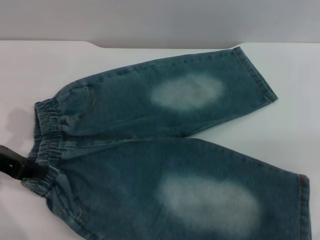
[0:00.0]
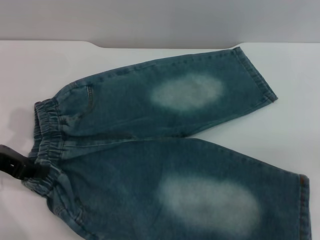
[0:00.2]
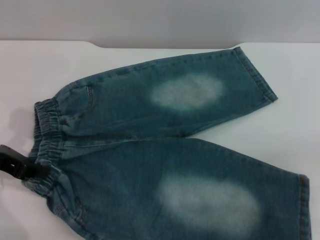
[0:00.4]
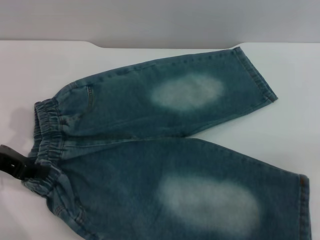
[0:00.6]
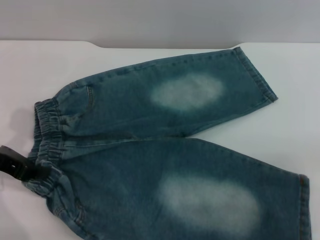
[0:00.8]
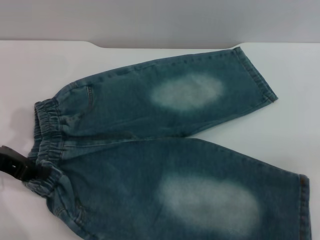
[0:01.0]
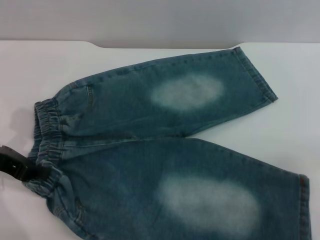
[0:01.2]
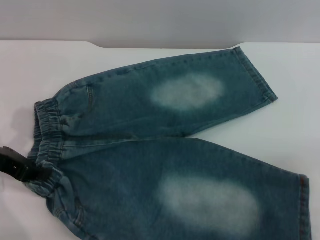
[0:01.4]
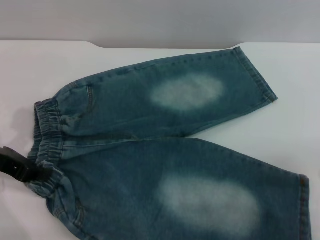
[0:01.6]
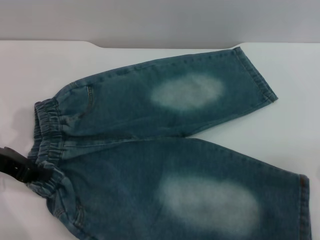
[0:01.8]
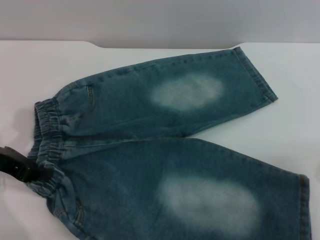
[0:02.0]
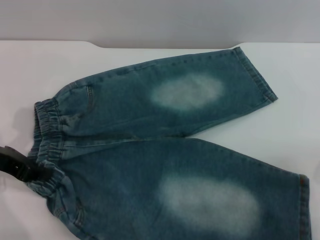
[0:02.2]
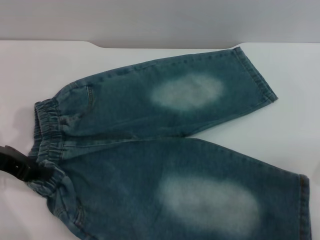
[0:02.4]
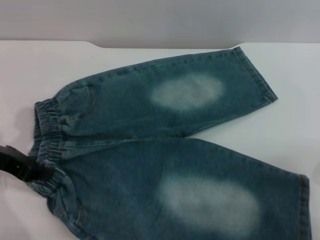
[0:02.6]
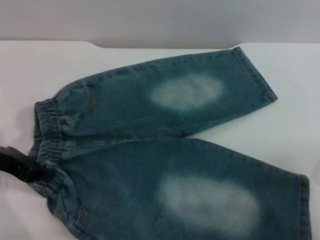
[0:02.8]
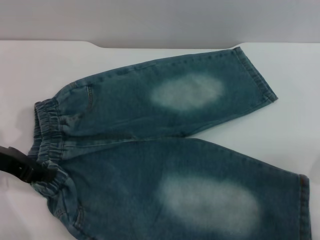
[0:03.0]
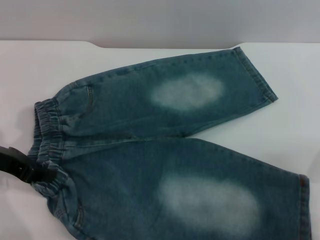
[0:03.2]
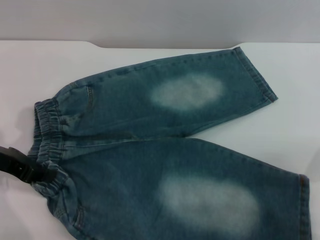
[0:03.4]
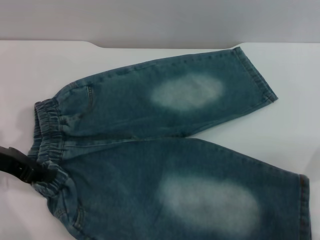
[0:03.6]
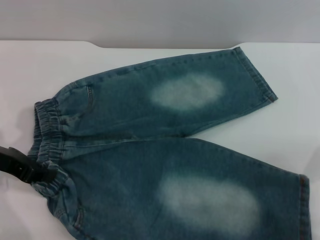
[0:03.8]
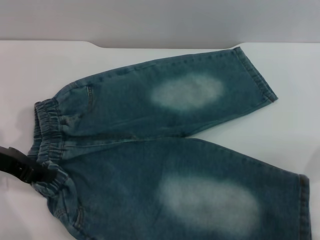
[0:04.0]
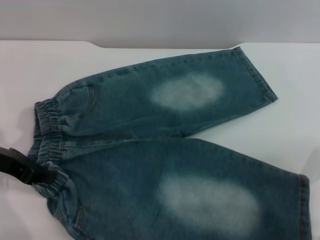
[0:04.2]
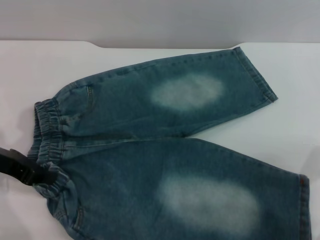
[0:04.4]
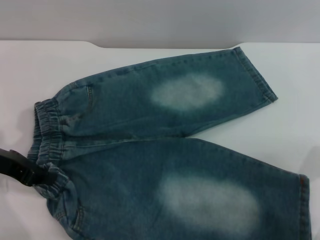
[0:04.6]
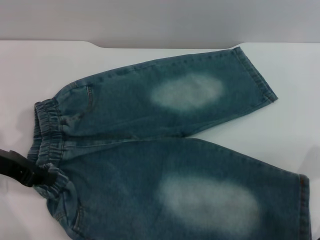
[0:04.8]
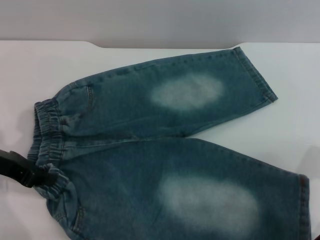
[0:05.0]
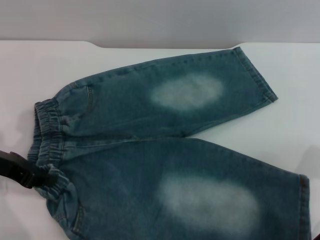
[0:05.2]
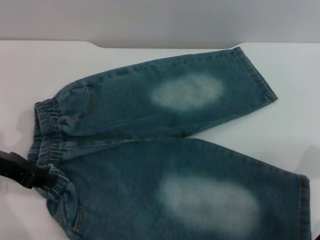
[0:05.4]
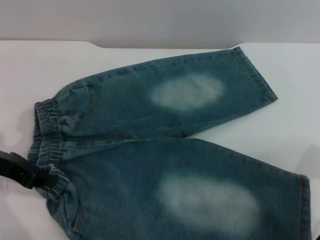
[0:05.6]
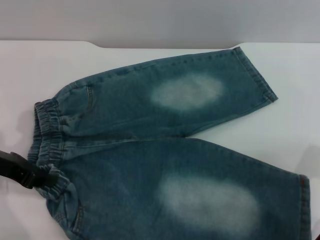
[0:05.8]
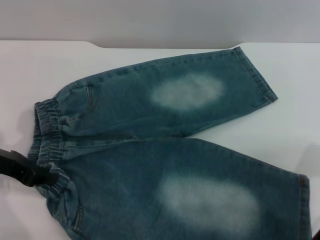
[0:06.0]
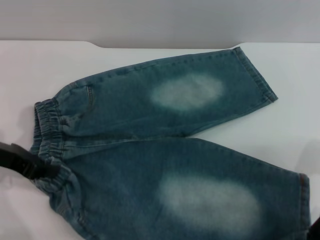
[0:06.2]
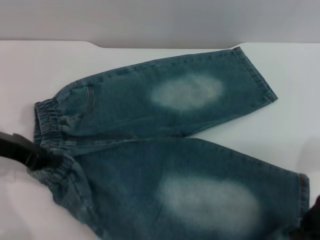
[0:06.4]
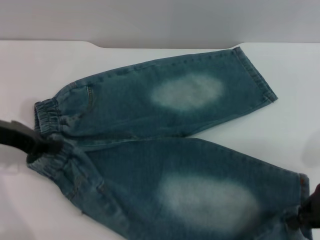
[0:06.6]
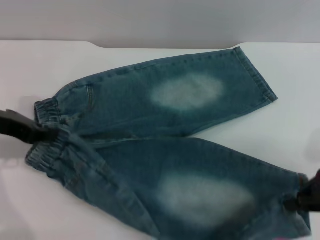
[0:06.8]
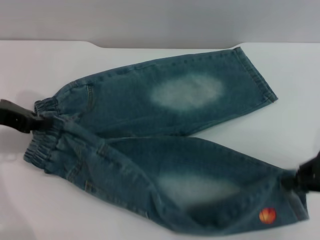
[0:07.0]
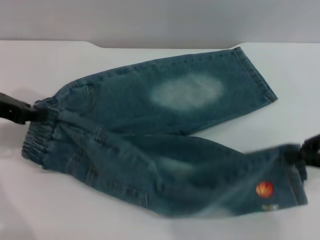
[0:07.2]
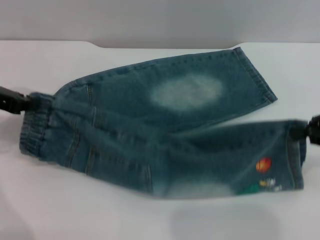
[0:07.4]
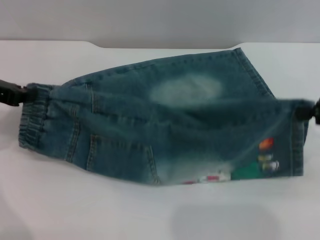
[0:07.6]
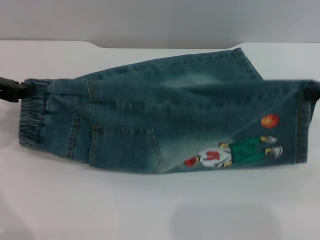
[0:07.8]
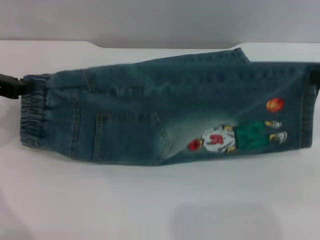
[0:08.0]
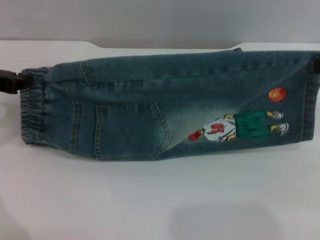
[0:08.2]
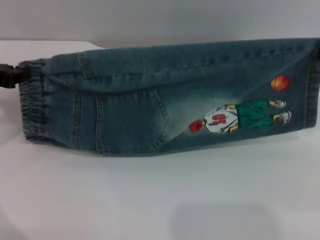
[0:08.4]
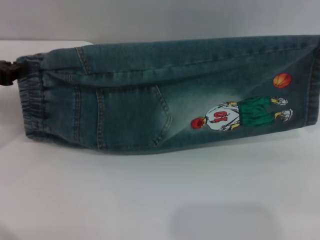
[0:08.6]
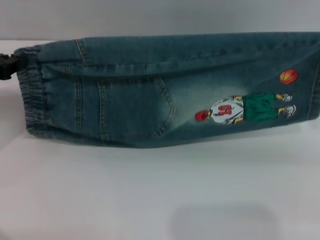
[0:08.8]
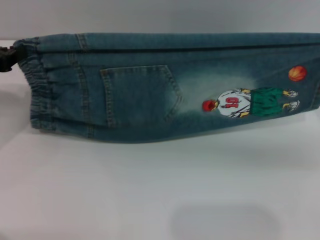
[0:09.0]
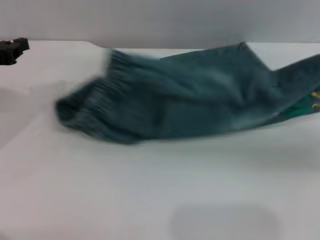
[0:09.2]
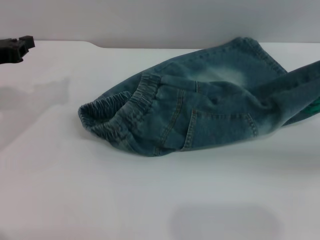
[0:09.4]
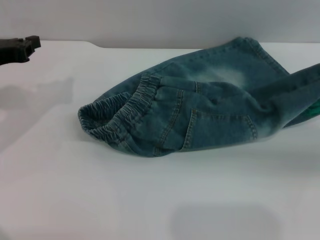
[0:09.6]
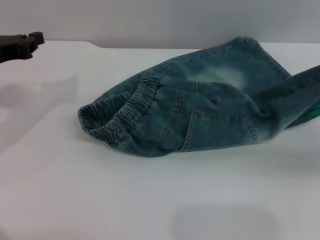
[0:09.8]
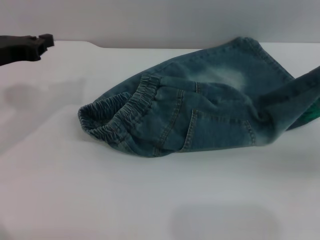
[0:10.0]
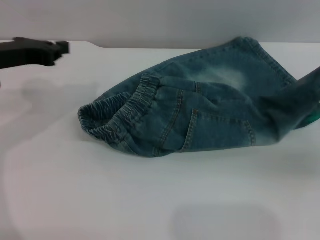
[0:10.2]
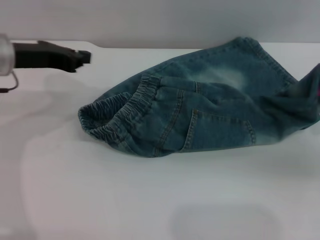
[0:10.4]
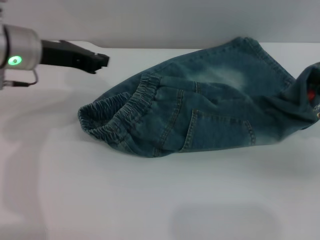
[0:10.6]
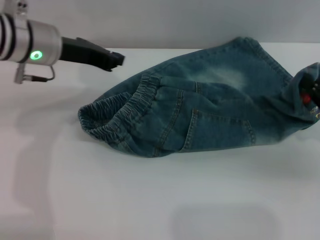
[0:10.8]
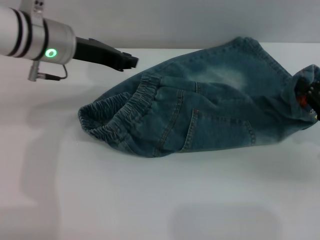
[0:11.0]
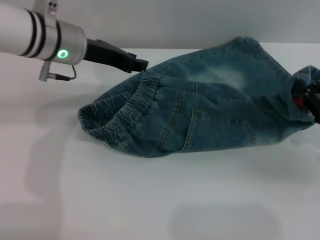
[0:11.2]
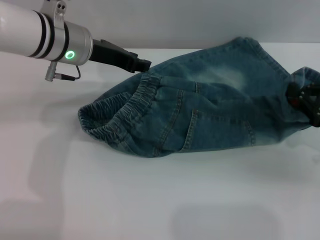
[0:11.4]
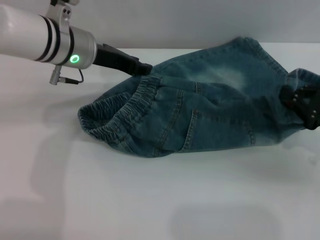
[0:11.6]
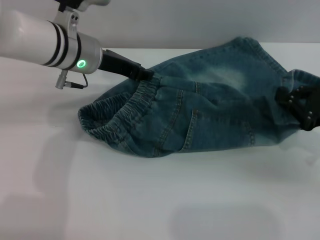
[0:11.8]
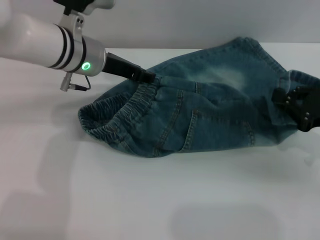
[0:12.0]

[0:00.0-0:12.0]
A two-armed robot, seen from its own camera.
0:06.0 to 0:07.6: The left gripper changes place by approximately 5 cm; the right gripper heads upward, covering roughly 10 cm.
0:09.0 to 0:10.4: The left gripper travels to the right by approximately 10 cm, while the right gripper travels downward by about 5 cm.
0:10.4 to 0:12.0: The left gripper goes roughly 10 cm to the right, and opens up.

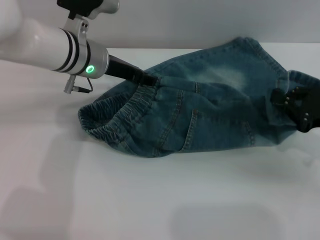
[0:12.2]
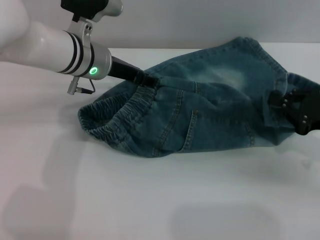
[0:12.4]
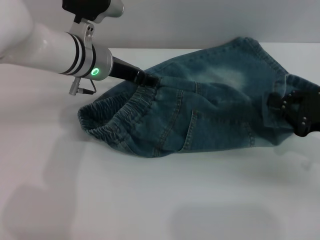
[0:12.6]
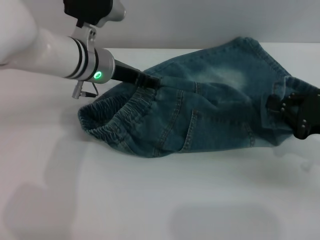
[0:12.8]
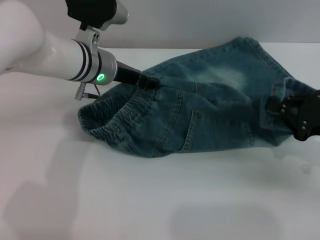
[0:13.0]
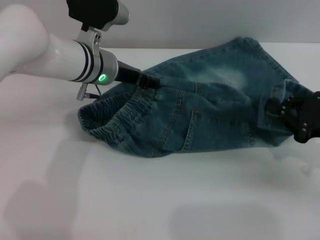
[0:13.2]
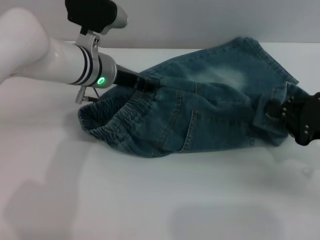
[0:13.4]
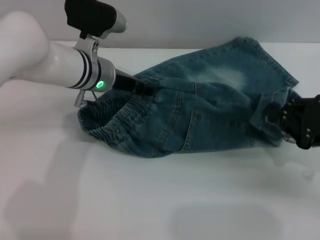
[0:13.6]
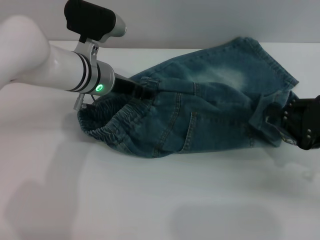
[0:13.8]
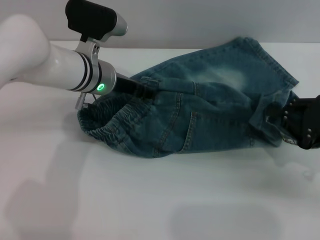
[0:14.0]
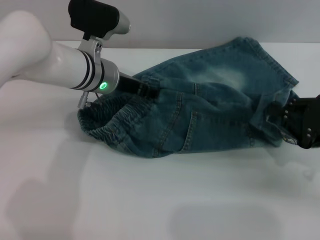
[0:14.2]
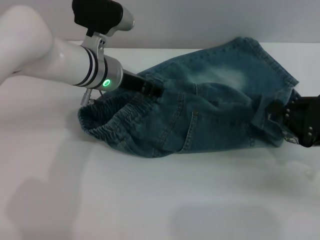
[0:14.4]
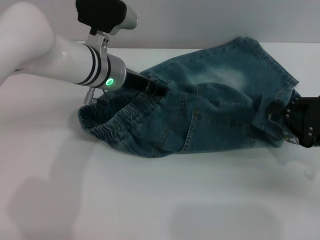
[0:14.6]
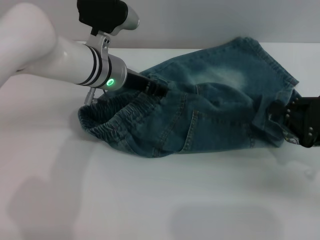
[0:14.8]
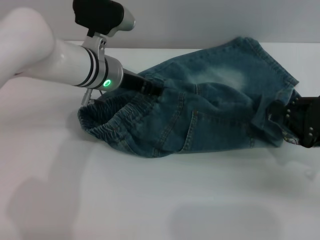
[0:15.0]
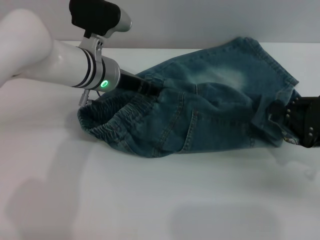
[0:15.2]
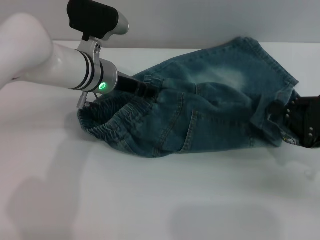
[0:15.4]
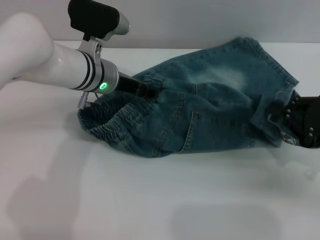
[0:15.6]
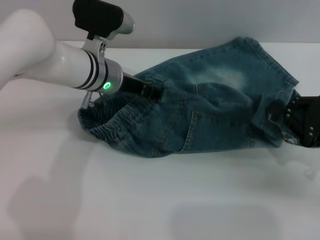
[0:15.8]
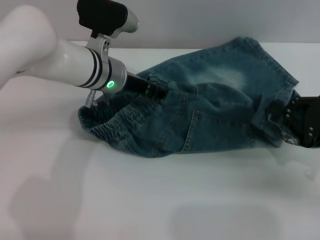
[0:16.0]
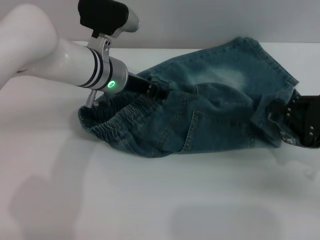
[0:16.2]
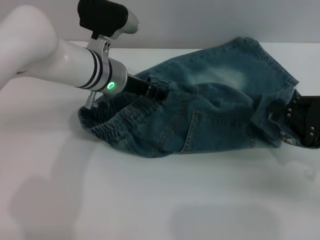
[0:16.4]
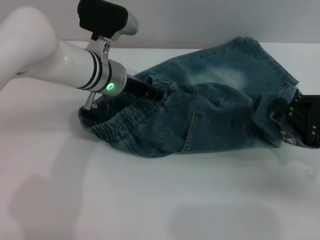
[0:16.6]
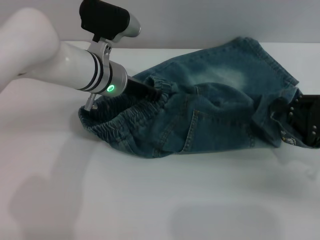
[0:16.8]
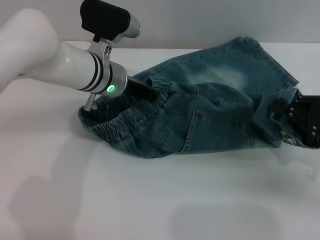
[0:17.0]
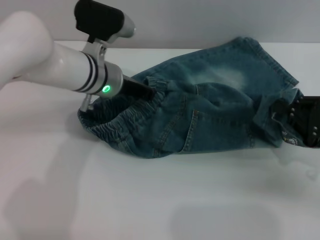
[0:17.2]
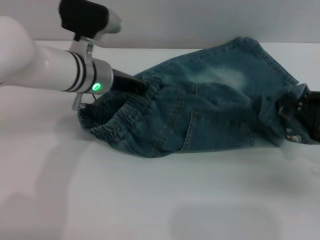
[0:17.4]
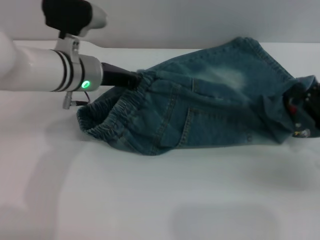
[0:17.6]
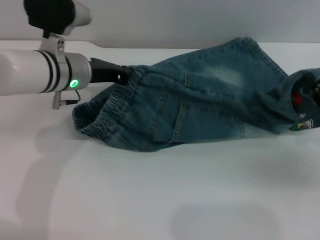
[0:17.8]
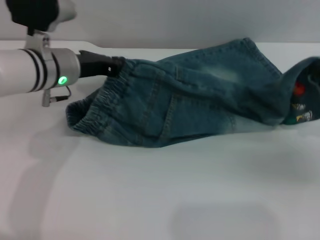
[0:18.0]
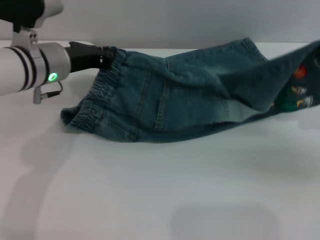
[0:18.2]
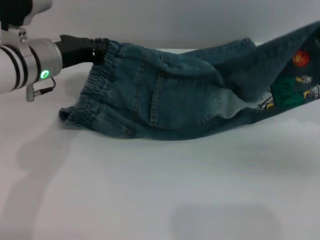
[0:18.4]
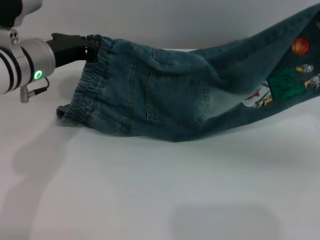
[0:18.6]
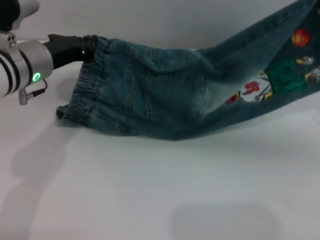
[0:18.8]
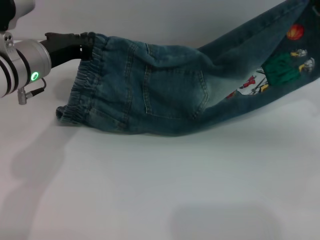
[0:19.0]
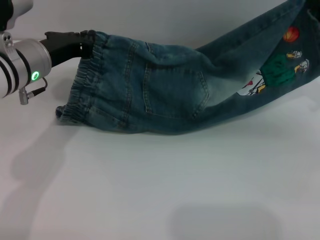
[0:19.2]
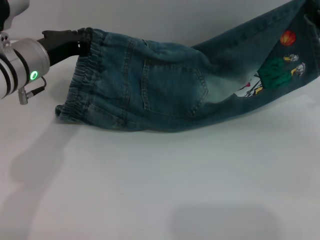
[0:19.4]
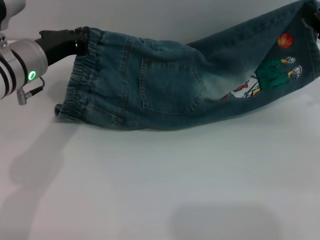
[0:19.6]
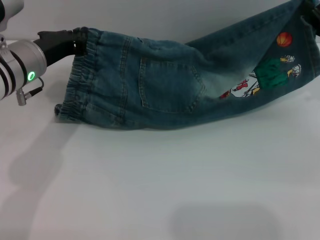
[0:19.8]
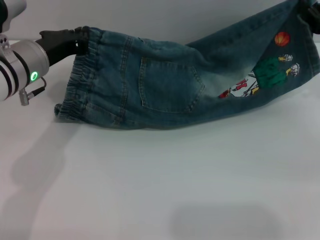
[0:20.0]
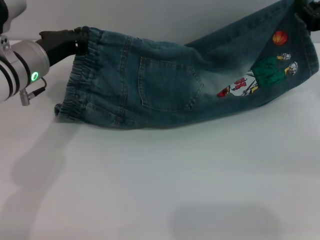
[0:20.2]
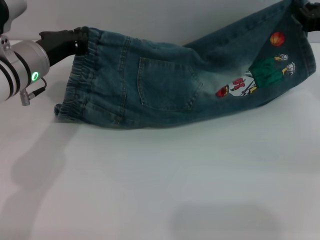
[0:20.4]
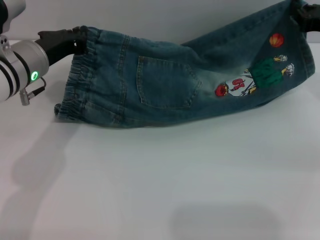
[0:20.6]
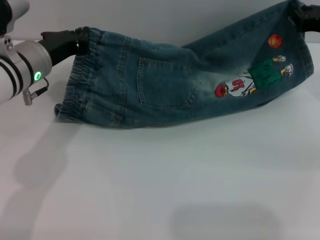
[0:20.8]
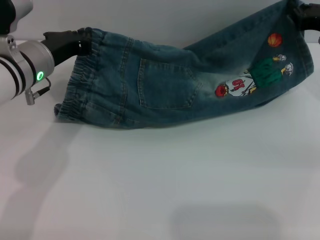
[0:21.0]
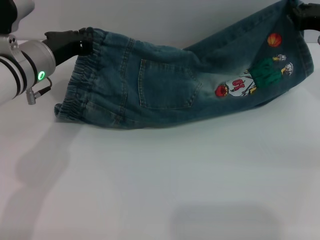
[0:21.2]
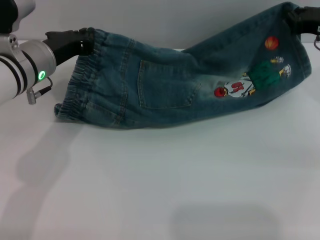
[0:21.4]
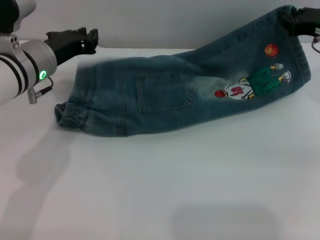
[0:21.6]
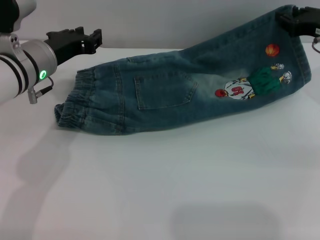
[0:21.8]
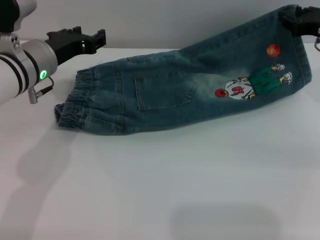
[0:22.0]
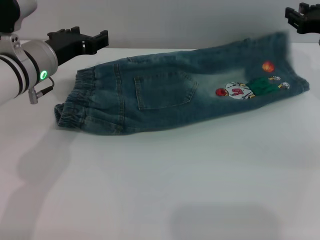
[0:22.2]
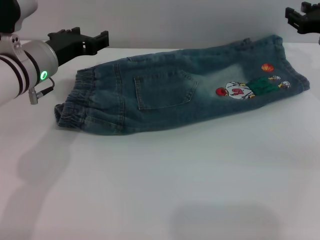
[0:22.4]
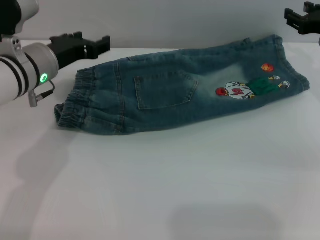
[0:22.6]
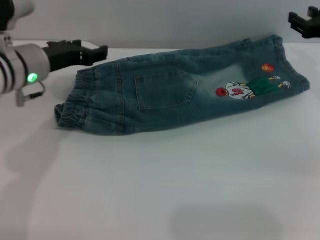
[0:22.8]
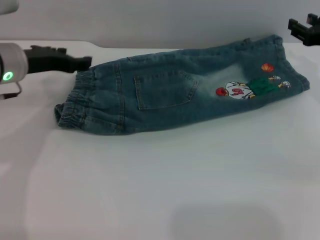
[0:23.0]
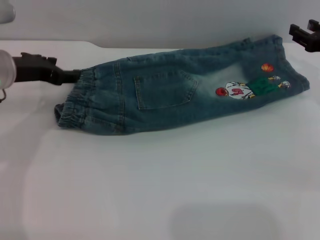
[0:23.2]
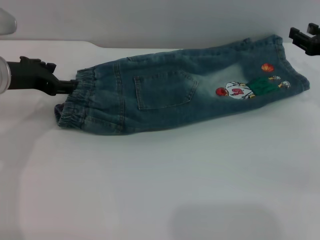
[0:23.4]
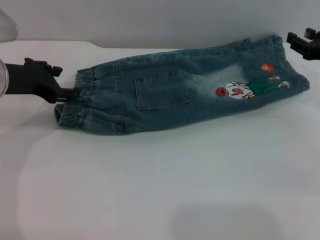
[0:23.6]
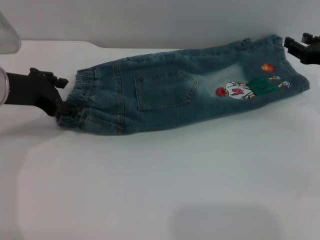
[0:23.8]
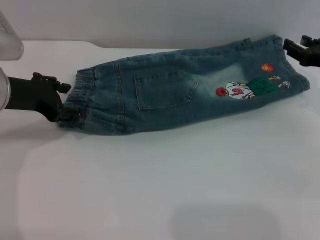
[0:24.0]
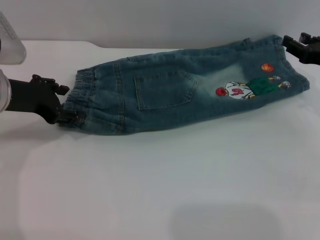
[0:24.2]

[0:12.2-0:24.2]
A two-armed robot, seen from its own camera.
Step, 0:12.2 to 0:22.2: Fold the bottom of the pants upward with both grippers.
0:12.2 to 0:15.2: The grippers make only small movements.
0:15.2 to 0:16.6: The two grippers keep their place.
0:16.6 to 0:18.2: The left gripper shifts roughly 10 cm to the left, and closes its fingers.
0:18.2 to 0:19.8: The right gripper shifts roughly 10 cm forward.
0:19.8 to 0:21.2: The right gripper moves about 5 cm.
0:21.2 to 0:22.6: The right gripper opens, while the left gripper opens its fingers.
0:22.6 to 0:24.2: The left gripper travels to the left by roughly 5 cm. Meanwhile the right gripper shifts by approximately 5 cm.
